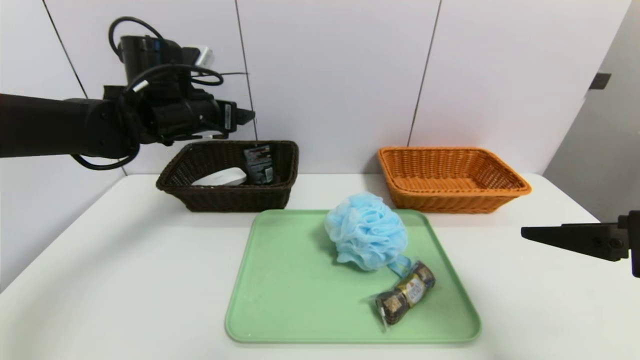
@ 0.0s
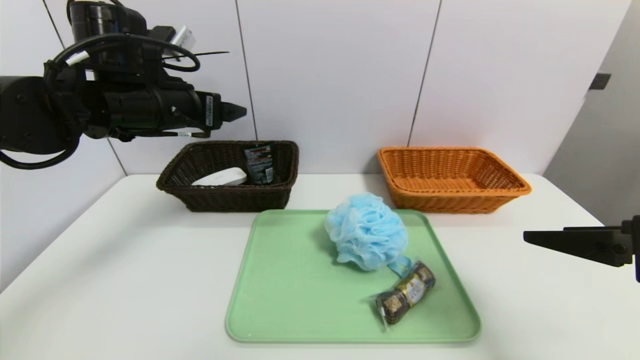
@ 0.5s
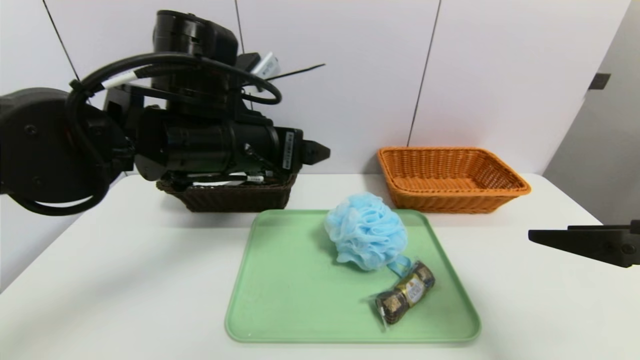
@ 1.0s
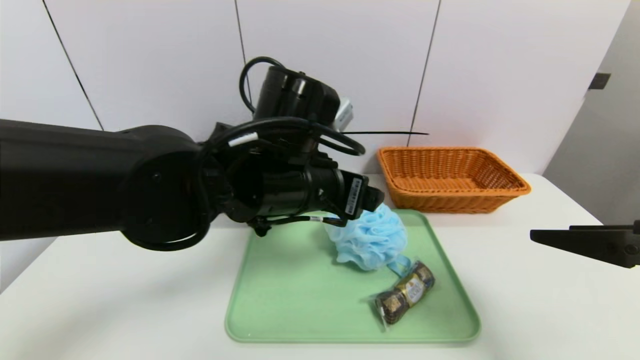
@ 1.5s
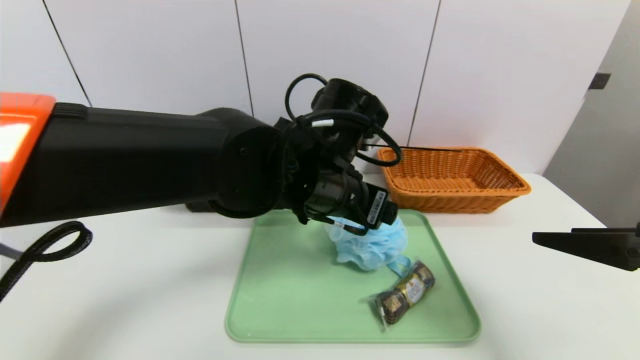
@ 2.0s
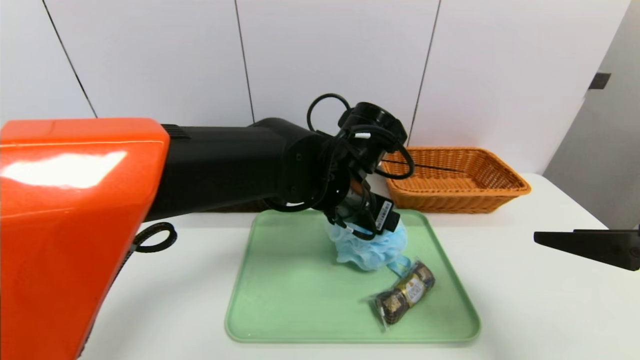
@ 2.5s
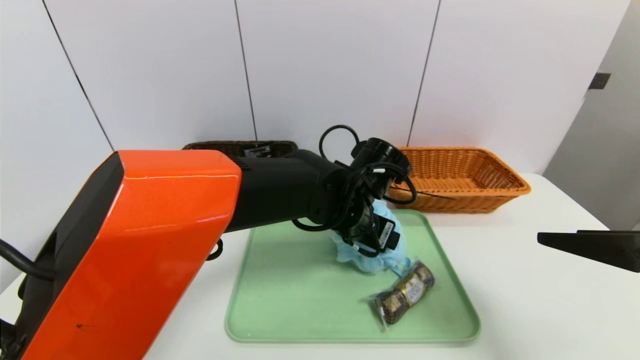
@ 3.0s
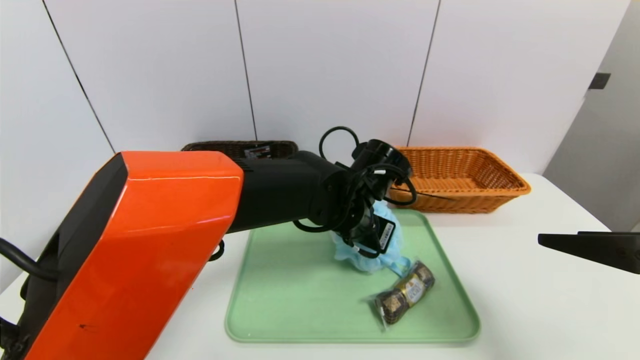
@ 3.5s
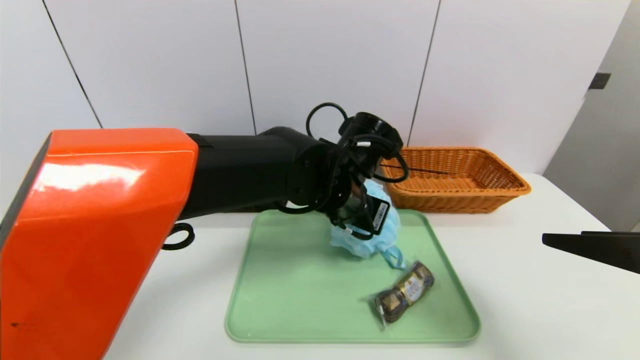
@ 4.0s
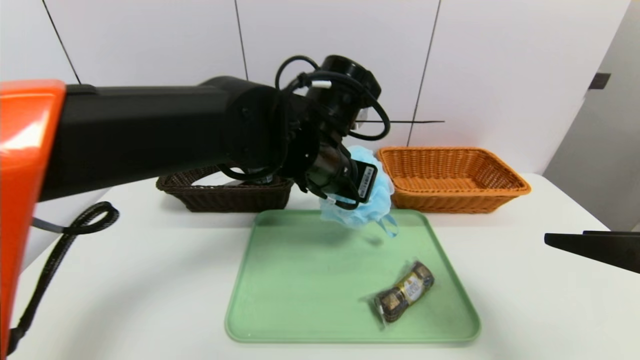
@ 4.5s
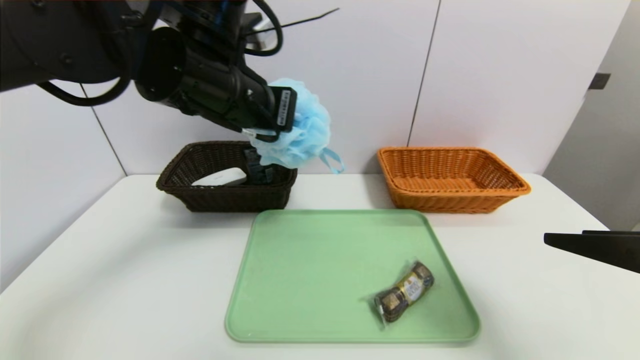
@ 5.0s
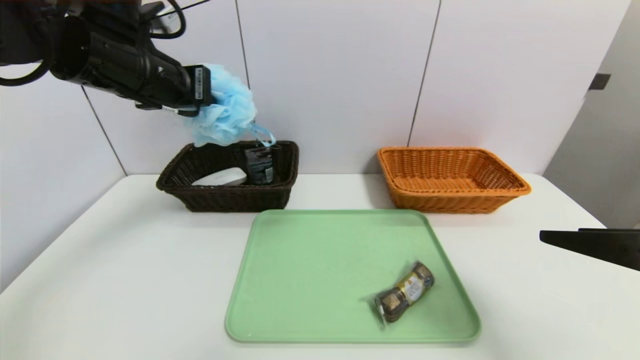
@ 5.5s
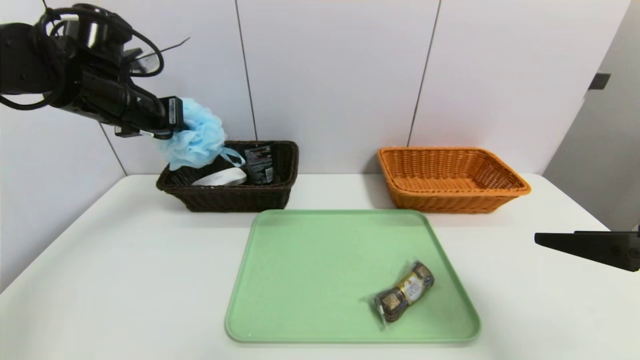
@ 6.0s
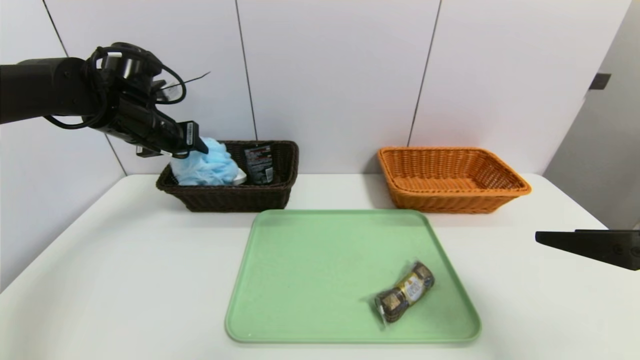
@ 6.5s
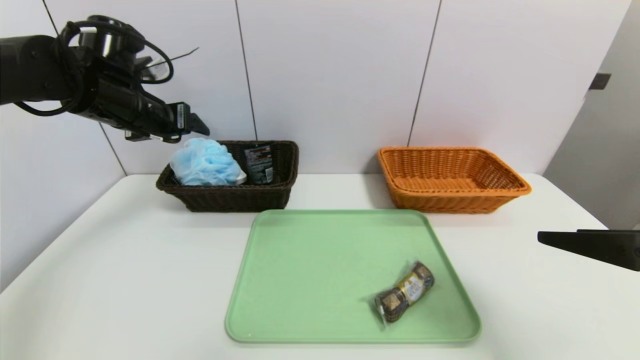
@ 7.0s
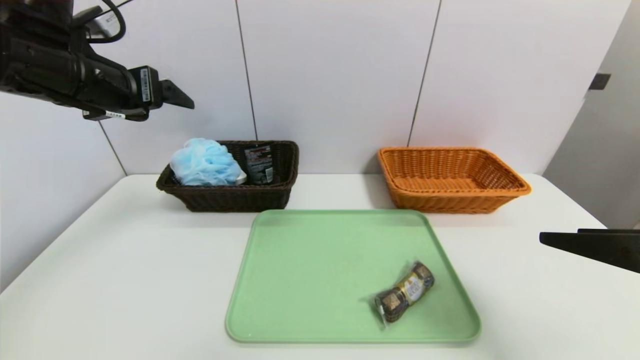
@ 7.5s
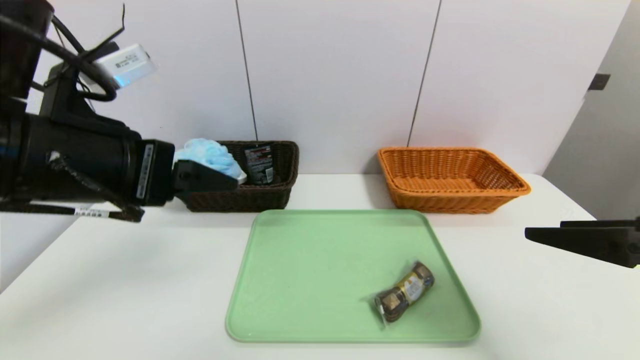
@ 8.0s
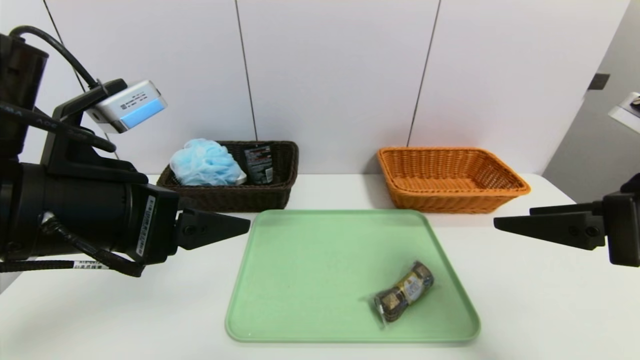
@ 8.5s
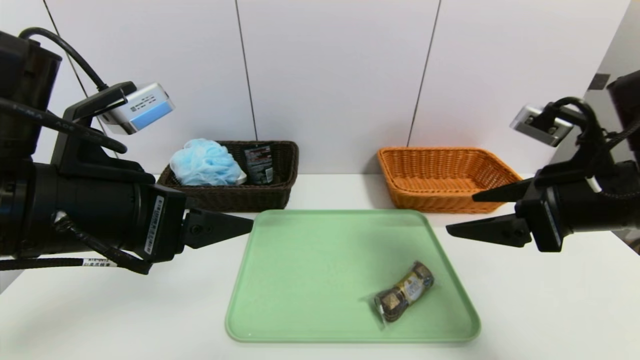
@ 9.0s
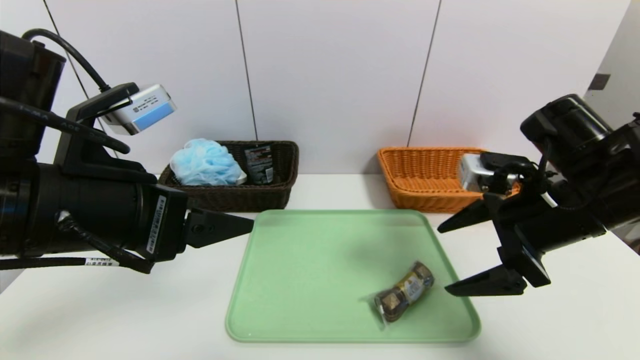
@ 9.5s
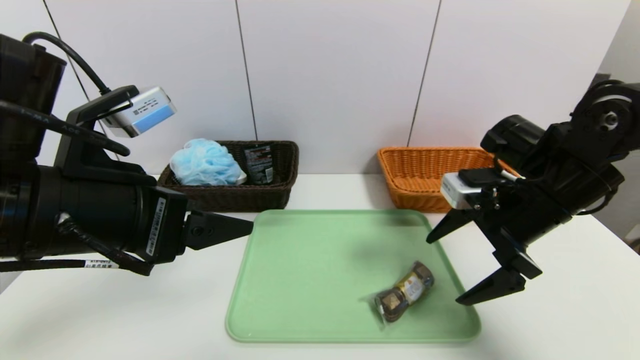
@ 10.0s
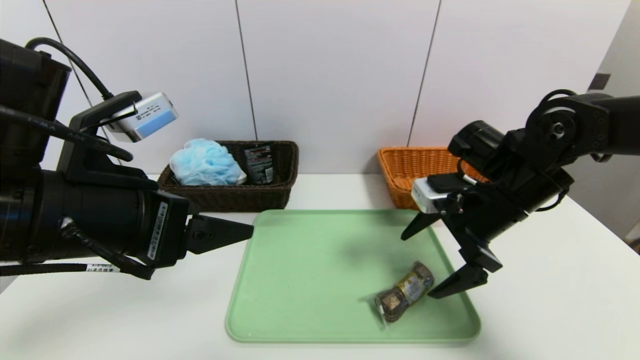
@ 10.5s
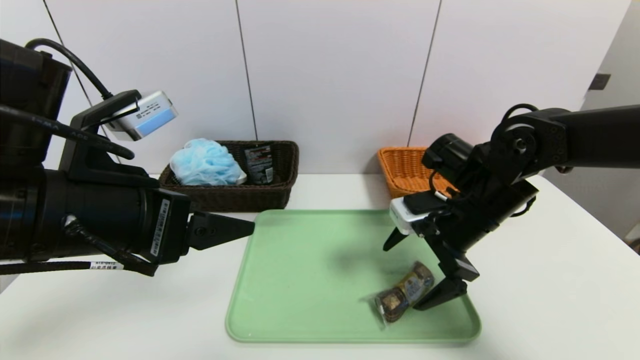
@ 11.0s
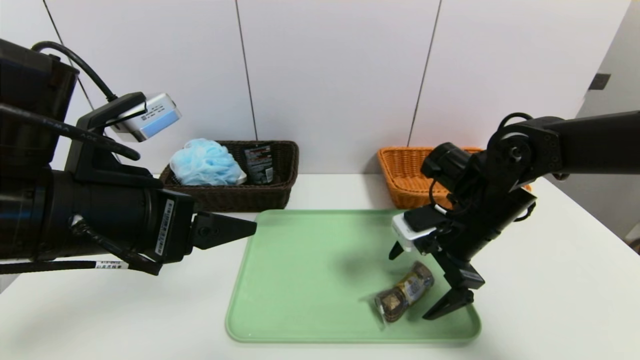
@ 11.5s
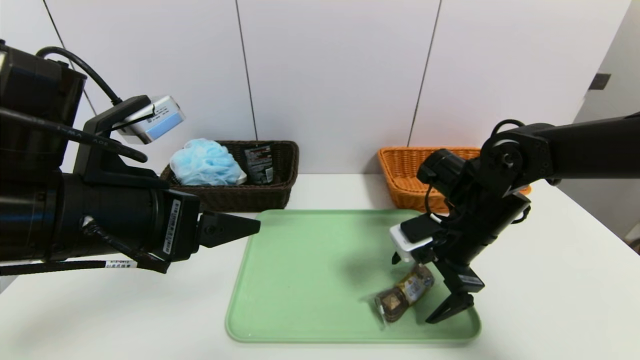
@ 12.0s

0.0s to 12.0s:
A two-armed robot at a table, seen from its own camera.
Task of the whole recording: place the food in the right basket with the right gripper, and place the non food items in the left basket with the left gripper.
Step, 0.0s to 7.0s: Grasp the shower sphere and put it in the left basket.
0.0s to 2.0s: The left gripper goes about 25 cm to the right and backward.
2.0s to 4.0s: The left gripper closes up.
4.0s to 6.0s: The left gripper goes approximately 30 cm to the left.
6.0s to 8.0s: The left gripper shifts roughly 20 cm backward and to the right, and opens up.
8.0s to 10.0s: The right gripper heads forward, covering roughly 15 cm.
10.0s to 12.0s: The right gripper heads to the left and downward, covering some 10 cm.

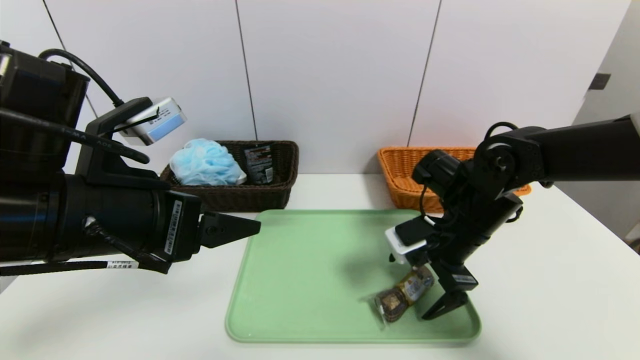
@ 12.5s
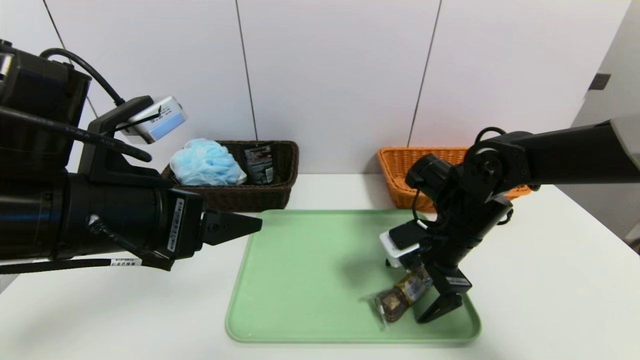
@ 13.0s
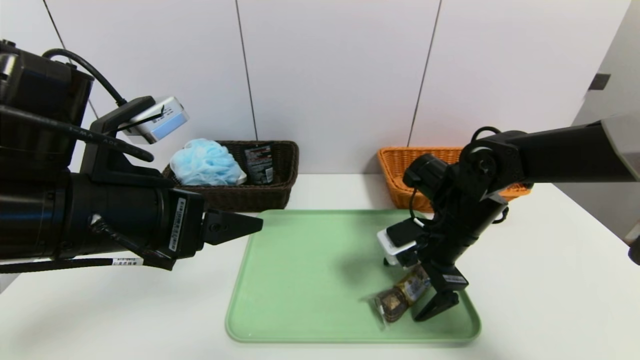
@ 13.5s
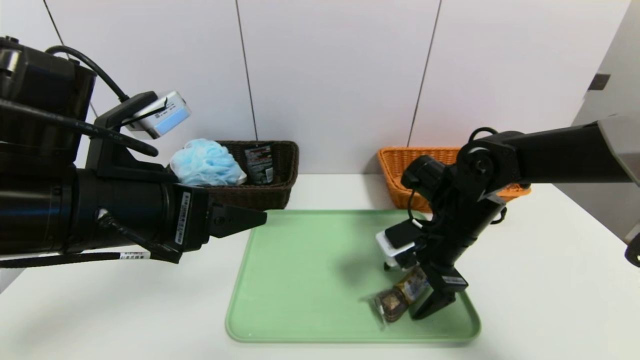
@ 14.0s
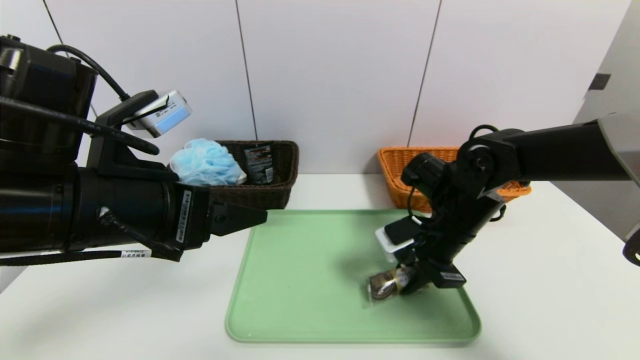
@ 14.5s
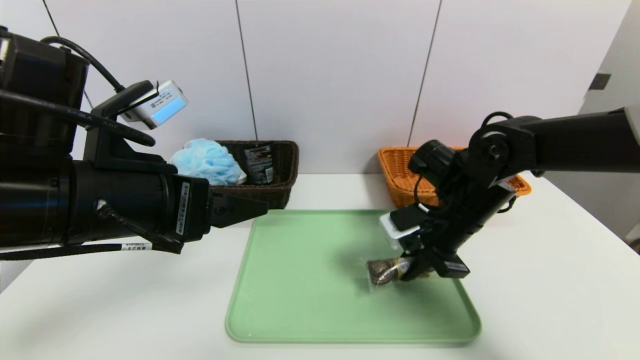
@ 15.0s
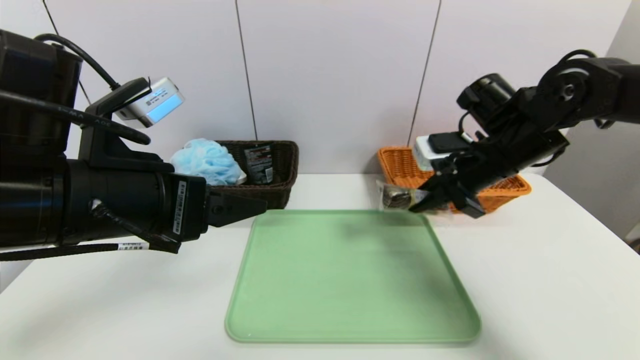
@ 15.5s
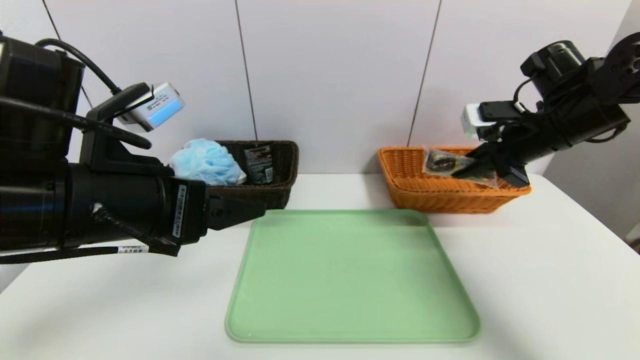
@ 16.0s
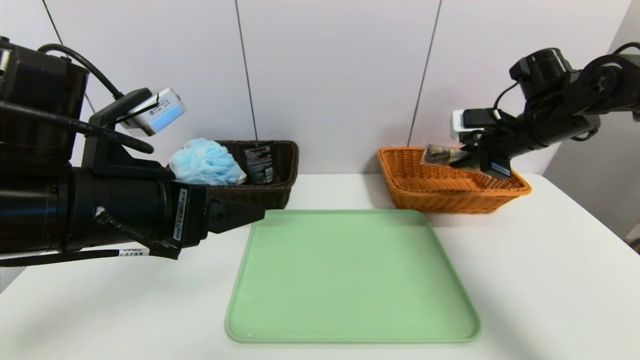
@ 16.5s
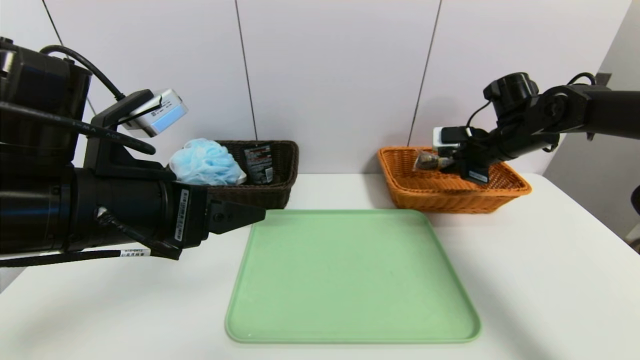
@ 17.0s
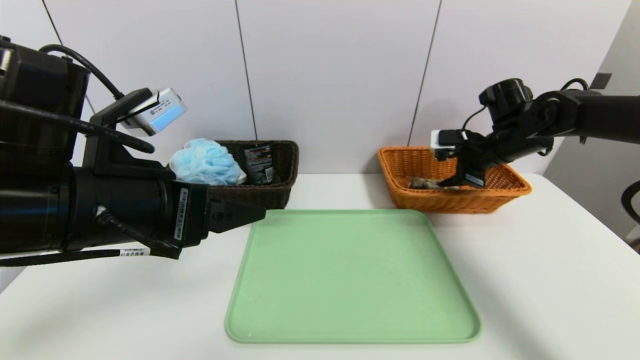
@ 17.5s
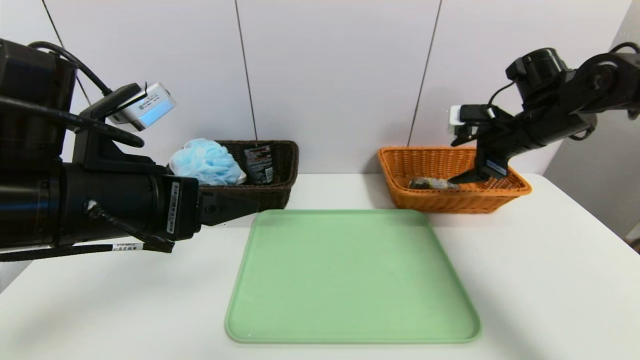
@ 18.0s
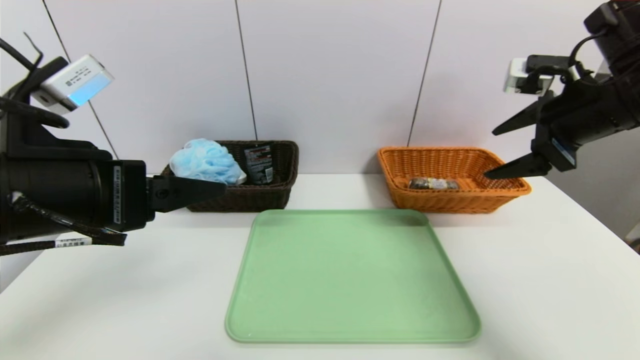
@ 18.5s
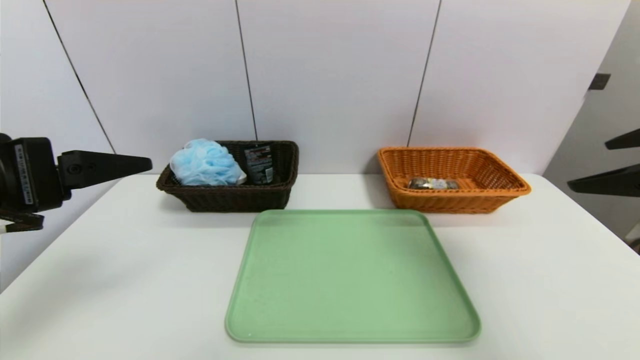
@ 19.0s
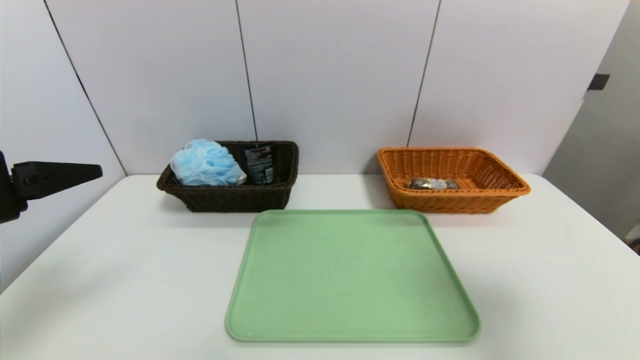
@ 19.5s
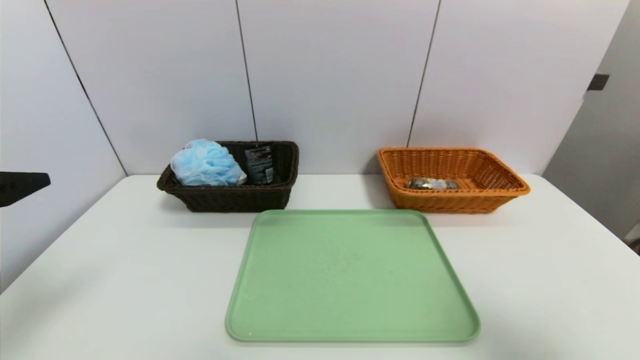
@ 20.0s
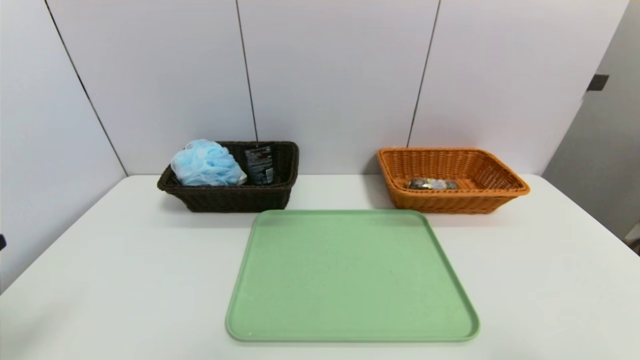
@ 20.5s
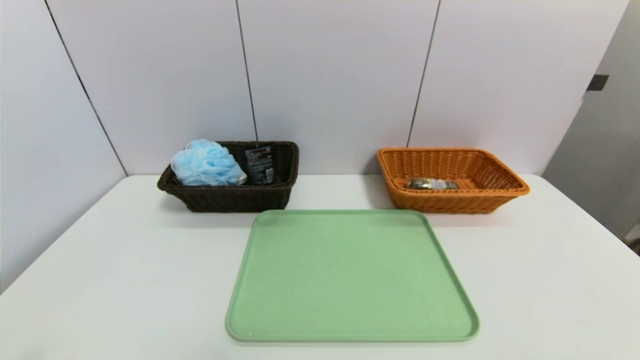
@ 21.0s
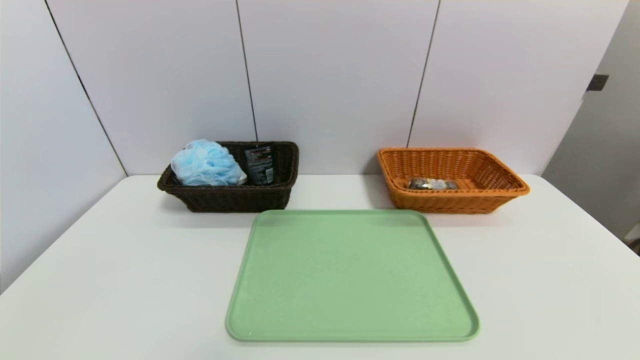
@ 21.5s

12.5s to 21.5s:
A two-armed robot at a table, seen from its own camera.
Task of the whole recording: place the food in the right basket with the right gripper, and place the non food items in the left basket with the left gripper.
Step, 12.5s to 17.5s: Grasp the chocolate and put it in the right basket.
12.5s to 14.5s: The right gripper closes its fingers.
14.5s to 17.0s: The right gripper is displaced to the right, forward and upward by approximately 20 cm.
17.0s to 19.5s: The left gripper shifts roughly 10 cm to the left and backward. The right gripper is displaced backward by some 30 cm, and opens.
19.5s to 21.5s: Both grippers travel together backward and downward, approximately 20 cm.
